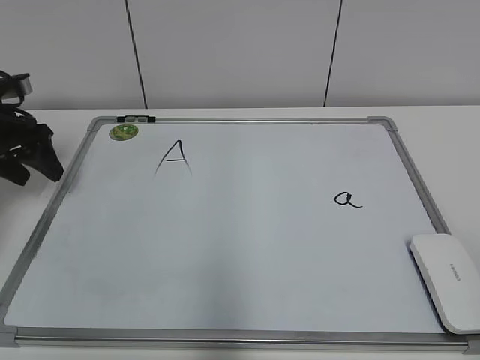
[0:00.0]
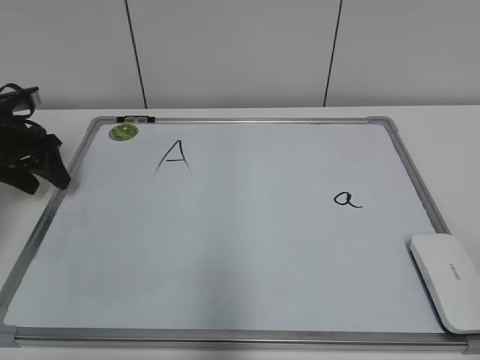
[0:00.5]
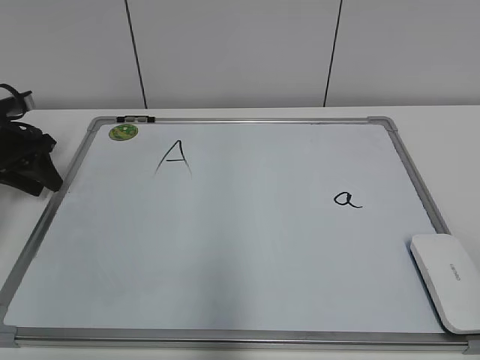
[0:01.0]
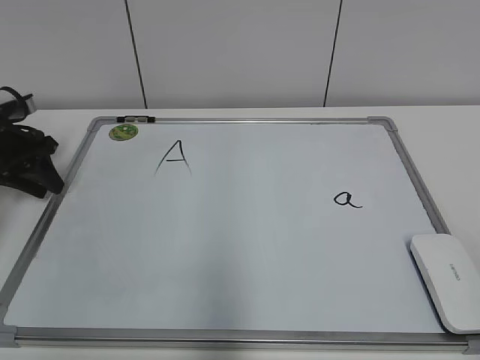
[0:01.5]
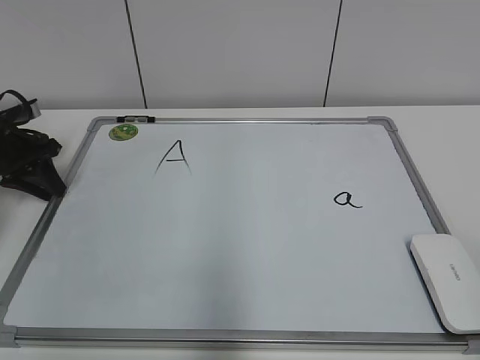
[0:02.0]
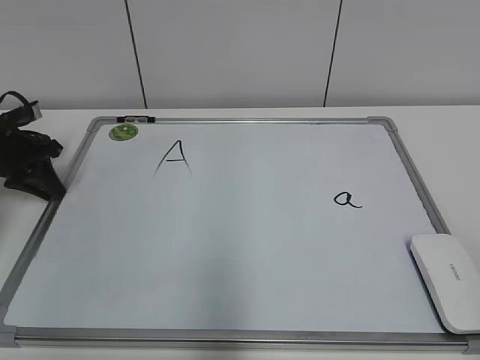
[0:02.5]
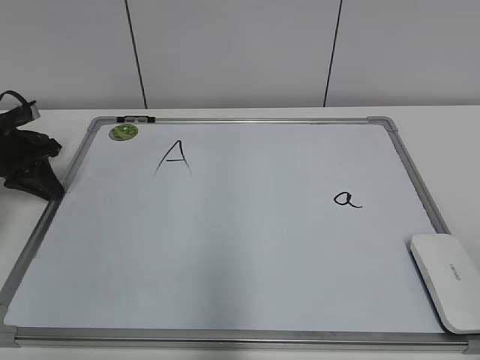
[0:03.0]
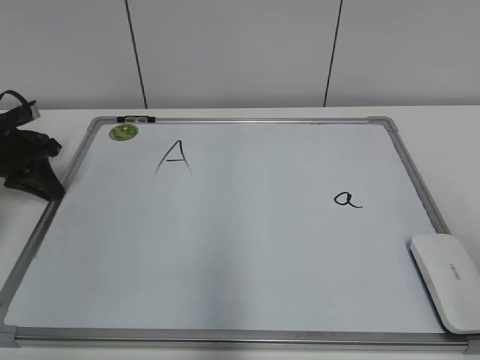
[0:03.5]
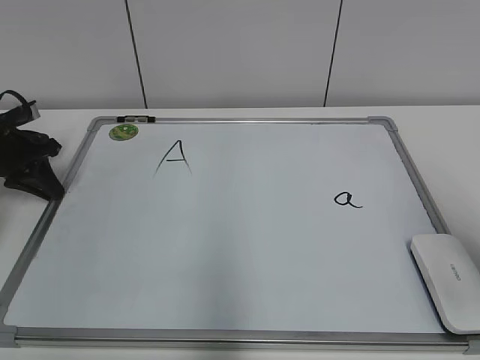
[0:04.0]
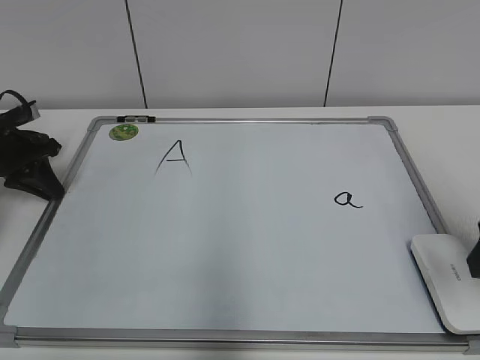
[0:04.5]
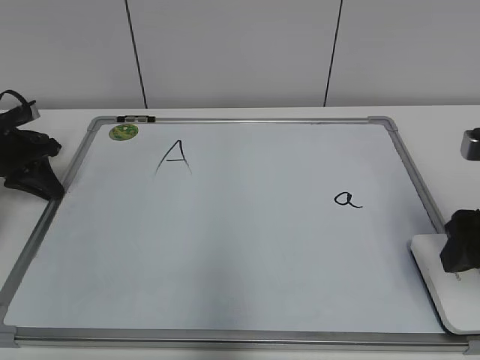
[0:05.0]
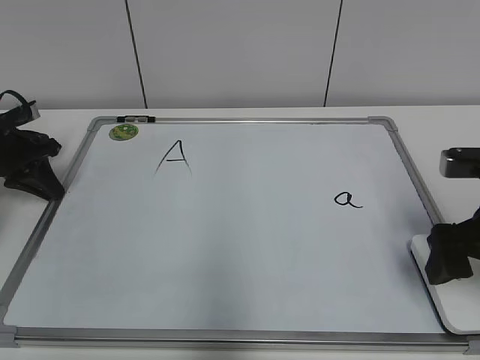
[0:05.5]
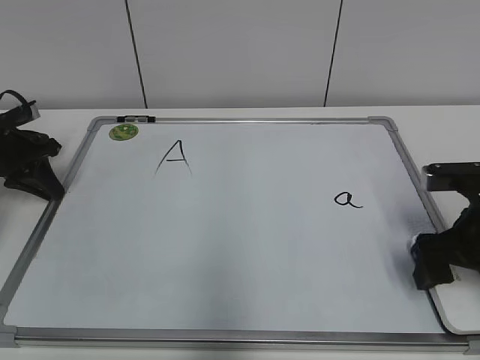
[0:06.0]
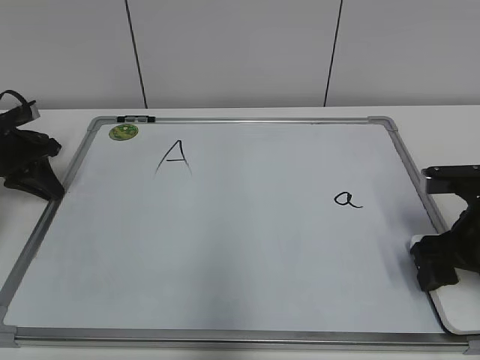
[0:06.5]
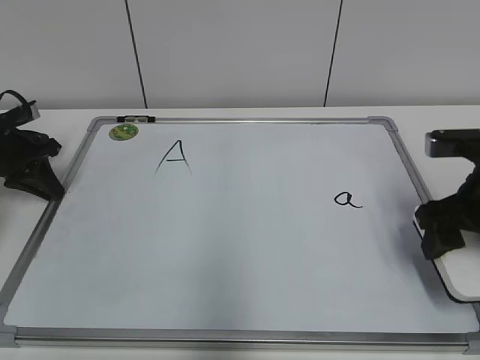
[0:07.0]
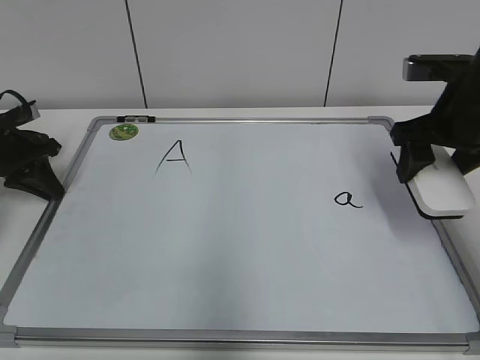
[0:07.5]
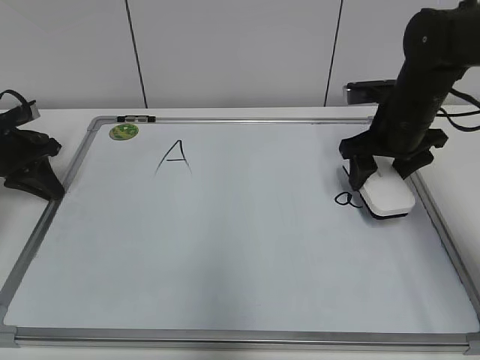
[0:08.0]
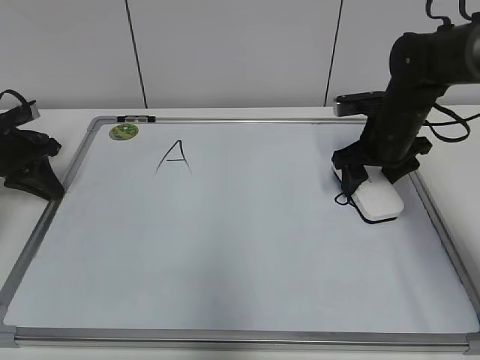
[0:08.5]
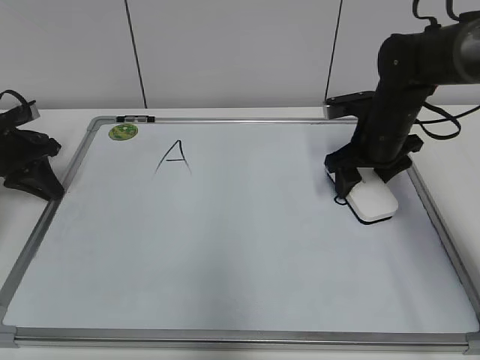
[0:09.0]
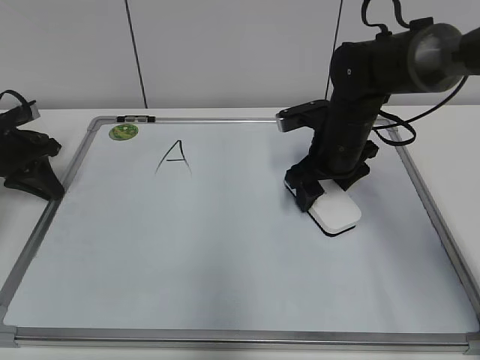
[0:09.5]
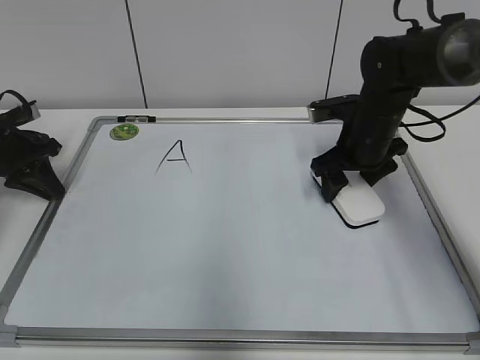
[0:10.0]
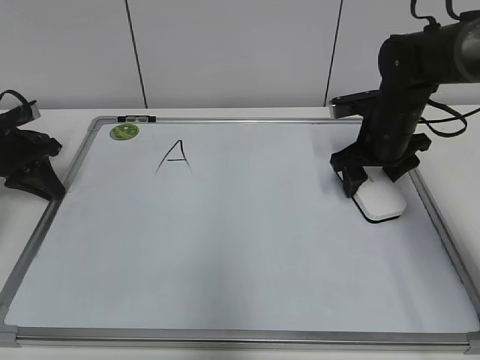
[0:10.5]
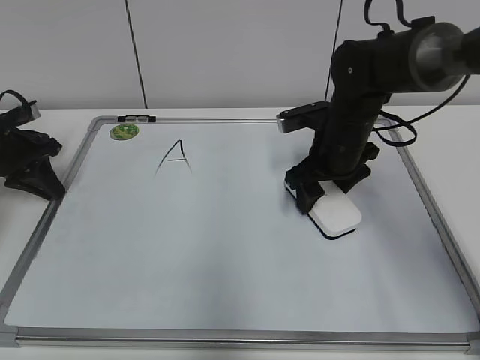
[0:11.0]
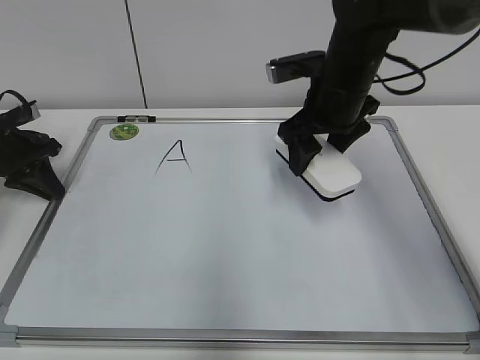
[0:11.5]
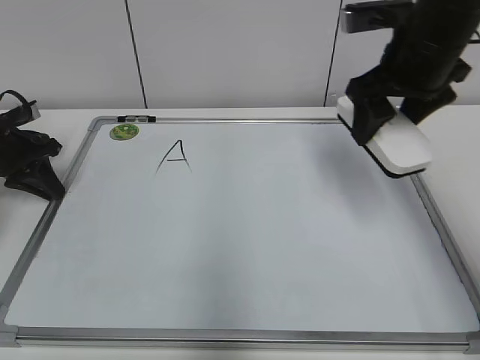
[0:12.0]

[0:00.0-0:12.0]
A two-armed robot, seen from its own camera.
Task of the whole recording: pick up the eraser on the blackboard and erase the letter "a".
Step, 0:00.0 to 0:02.5: Hold the drawing board steady with your left hand.
Step, 0:03.0 to 0:06.5: Grab the eraser with your right hand.
Step, 0:07.0 to 0:10.5: Erase the letter a with your right hand.
0:00.0 to 0:02.0: The left gripper shifts some 5 cm downward, and closes up.
0:02.0 to 0:04.0: The right gripper heads forward, covering about 15 cm.
0:04.0 to 0:06.0: The right gripper is displaced downward and forward by about 15 cm, and opens its fingers.
0:06.0 to 0:08.0: The right gripper heads forward, covering about 15 cm, and closes.
0:10.0 to 0:12.0: The right gripper heads upward and backward, covering about 15 cm.

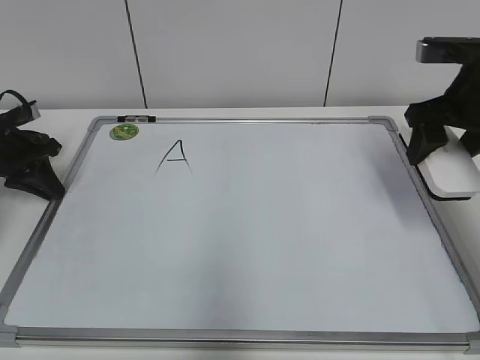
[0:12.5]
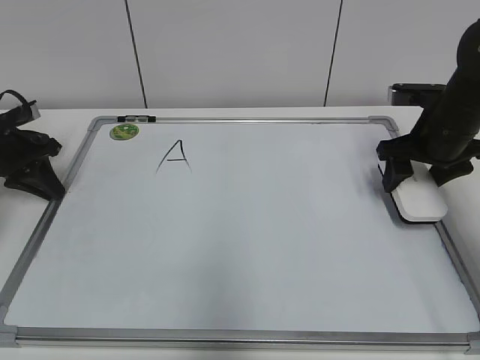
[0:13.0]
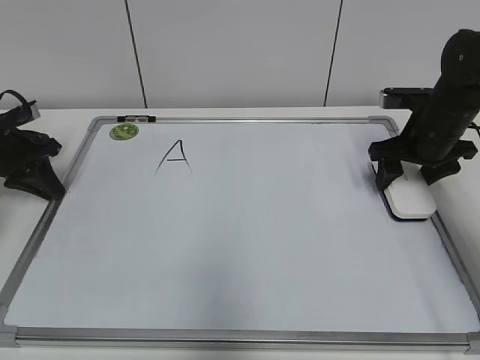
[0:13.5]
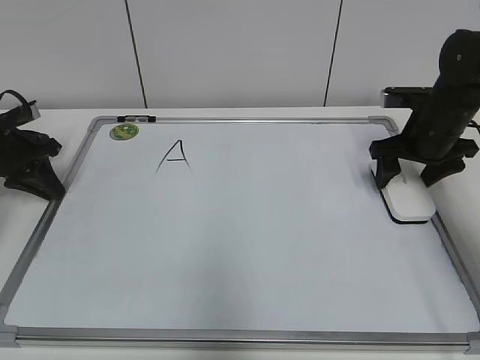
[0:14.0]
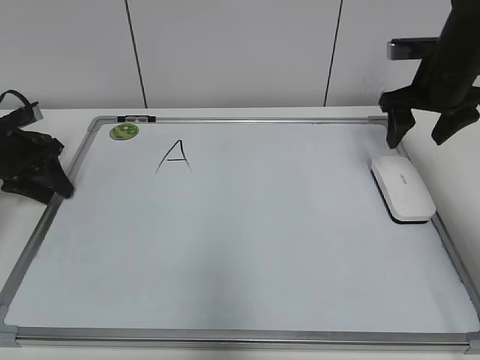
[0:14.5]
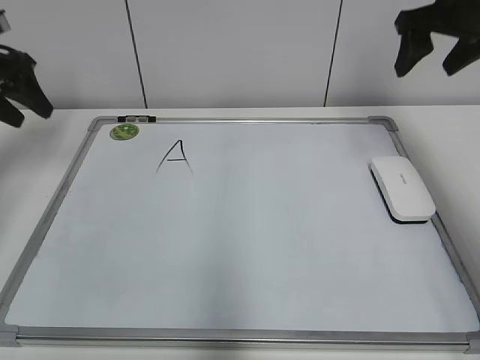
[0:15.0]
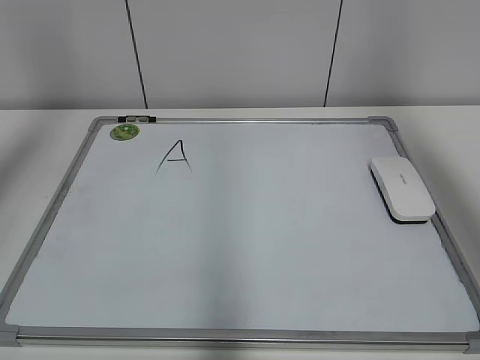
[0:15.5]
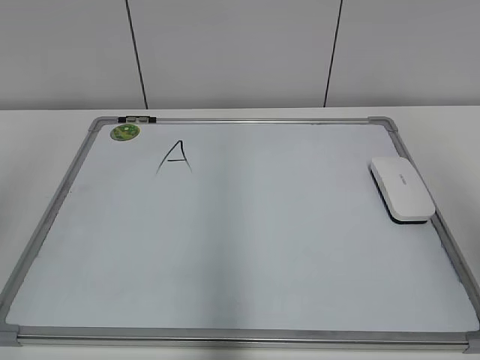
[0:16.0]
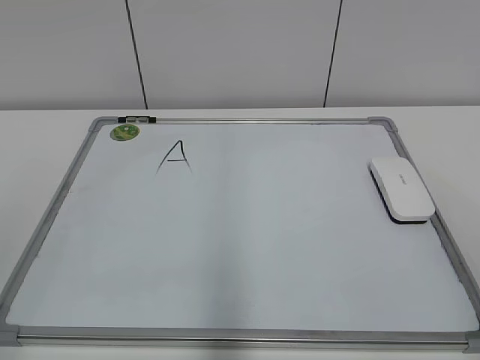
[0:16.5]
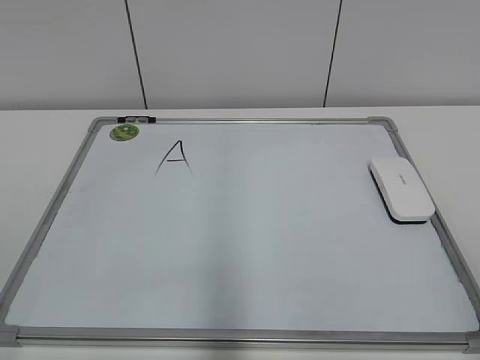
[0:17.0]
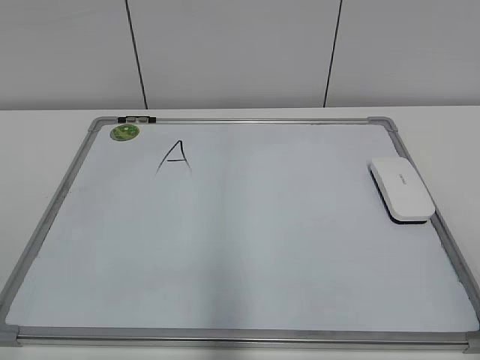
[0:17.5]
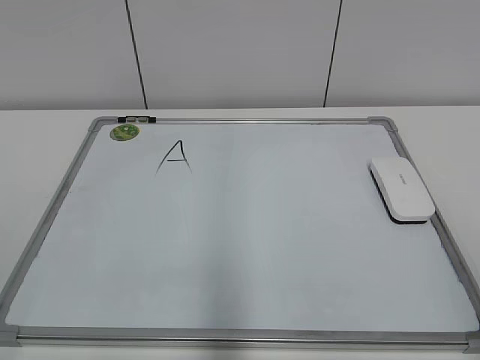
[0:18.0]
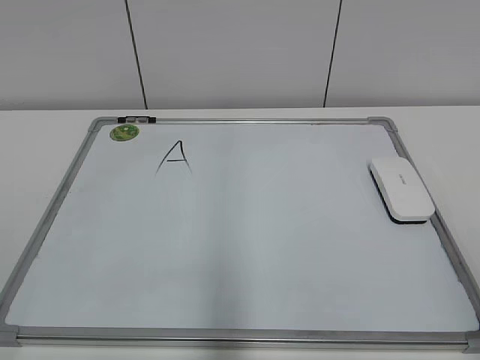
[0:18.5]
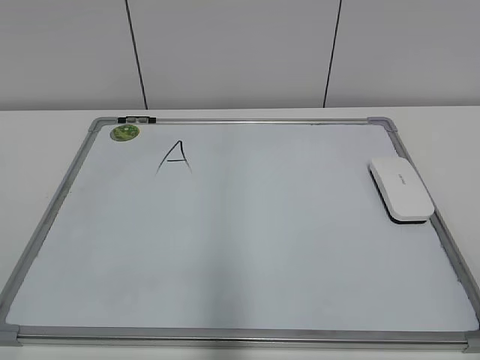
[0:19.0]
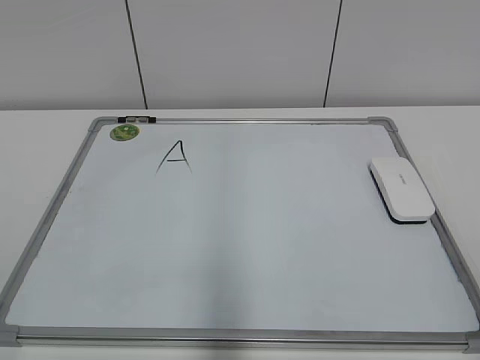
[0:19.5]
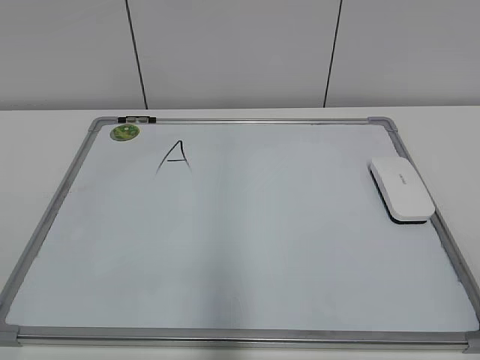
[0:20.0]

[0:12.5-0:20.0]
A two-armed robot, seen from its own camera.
Task of the whole recording: pick up the eraser on the blackboard and erase the letter "a".
Step, 0:12.5 to 0:14.0: Put down the eraser with your right hand.
0:12.5 to 0:14.5: The left gripper opens; the right gripper heads forward, covering about 10 cm, reaches roughly 10 cm downward, then returns, and opens up.
0:14.5 to 0:16.5: The left gripper heads backward and upward, covering approximately 50 cm. Meanwhile the right gripper goes roughly 40 cm backward.
